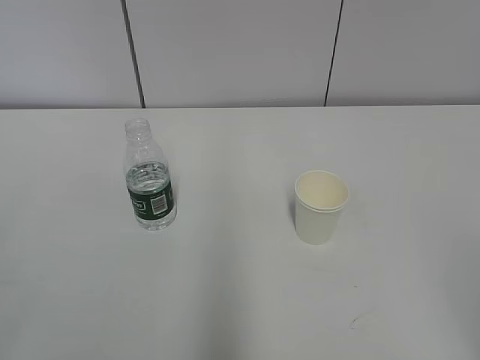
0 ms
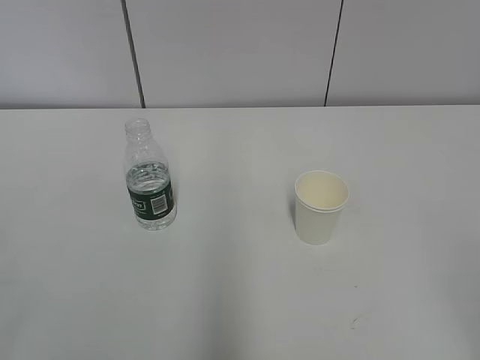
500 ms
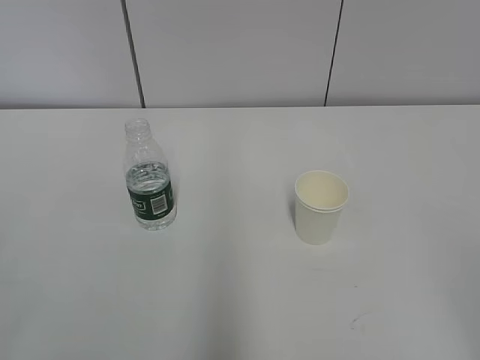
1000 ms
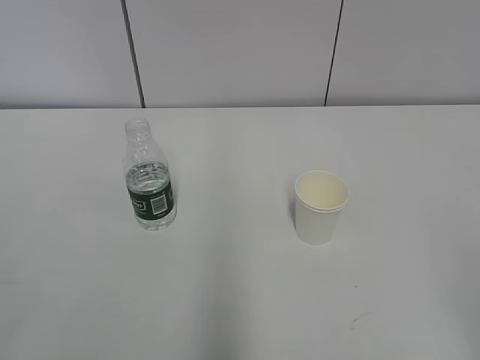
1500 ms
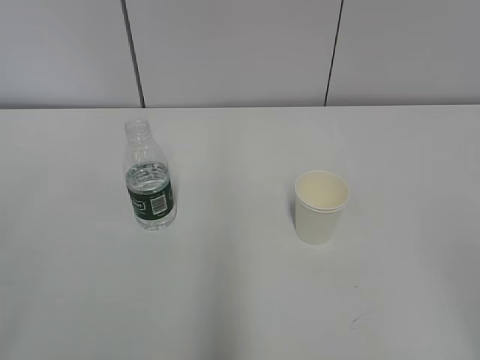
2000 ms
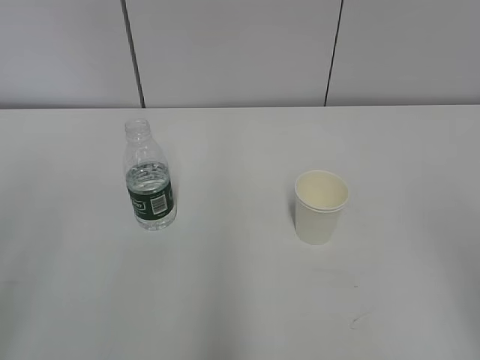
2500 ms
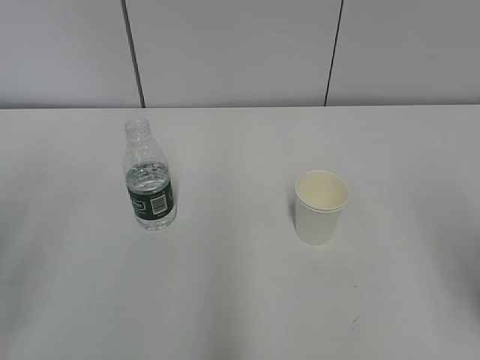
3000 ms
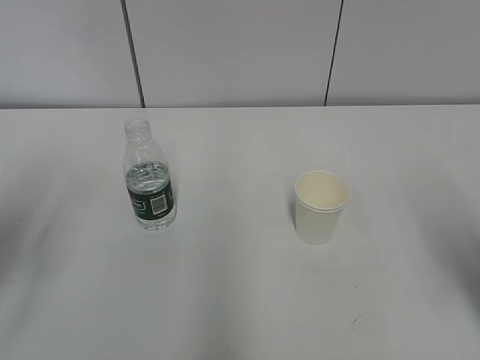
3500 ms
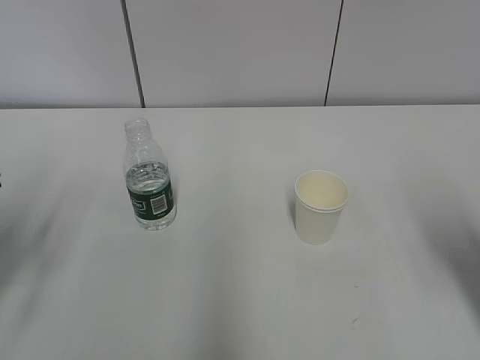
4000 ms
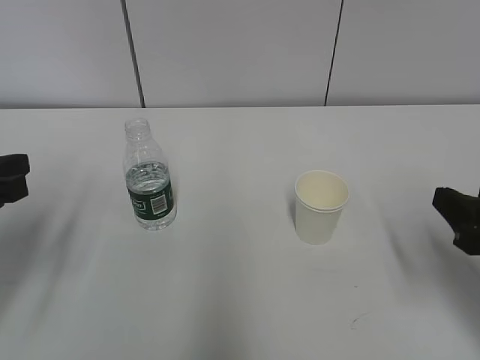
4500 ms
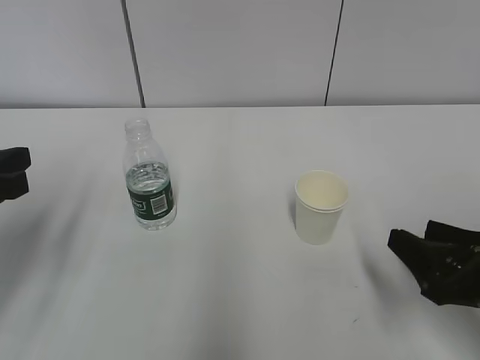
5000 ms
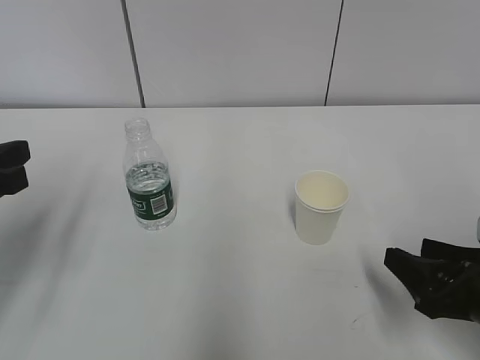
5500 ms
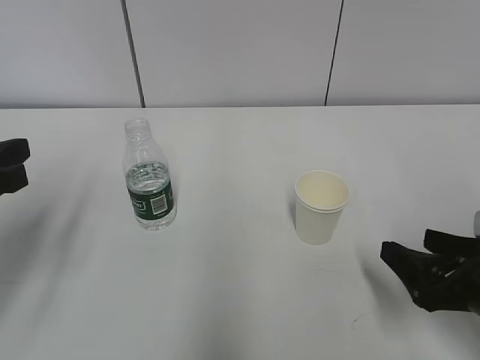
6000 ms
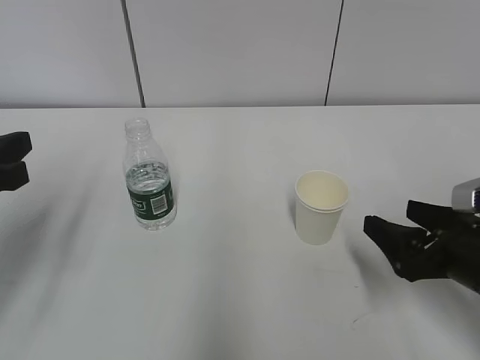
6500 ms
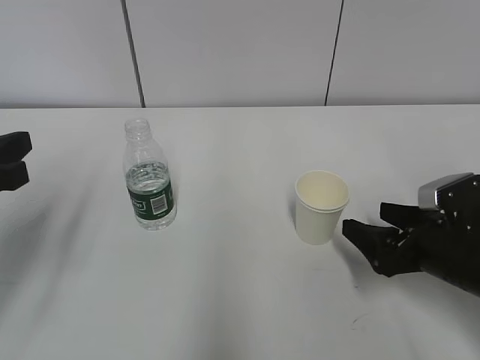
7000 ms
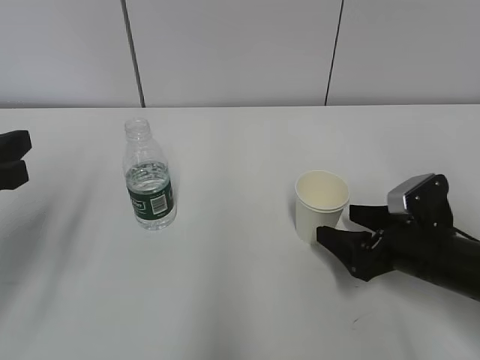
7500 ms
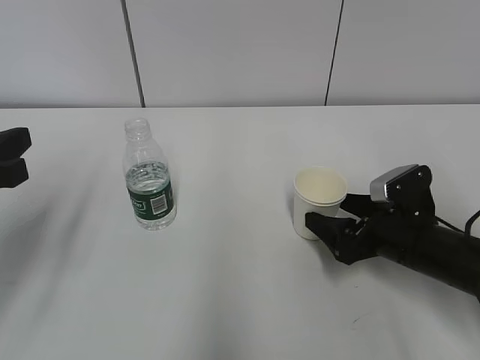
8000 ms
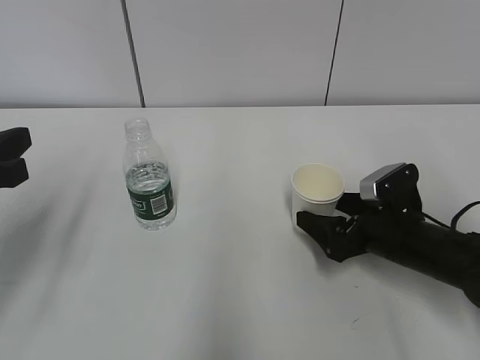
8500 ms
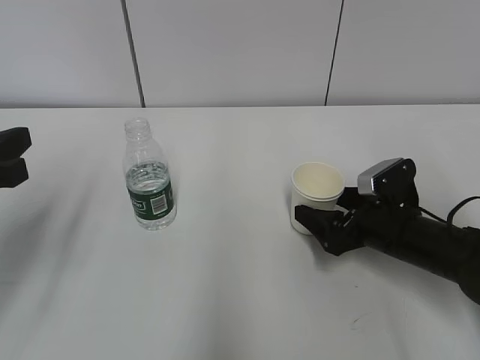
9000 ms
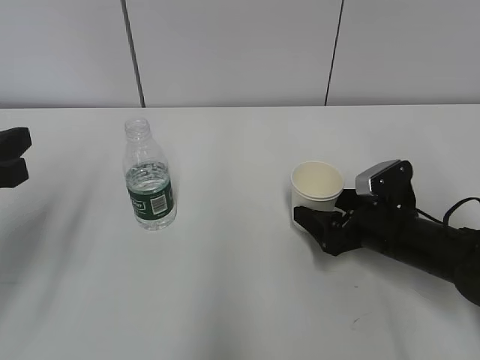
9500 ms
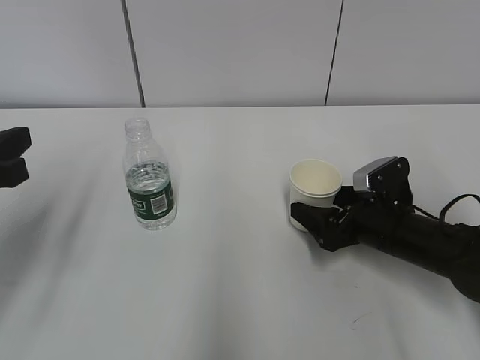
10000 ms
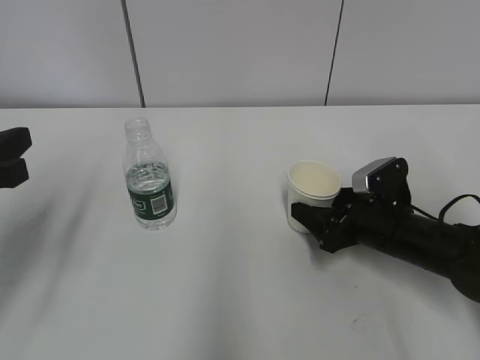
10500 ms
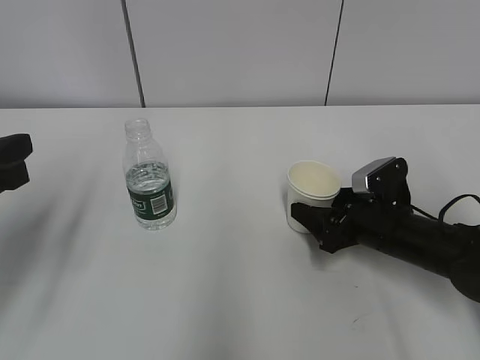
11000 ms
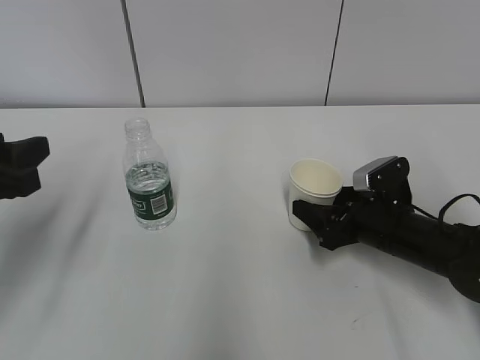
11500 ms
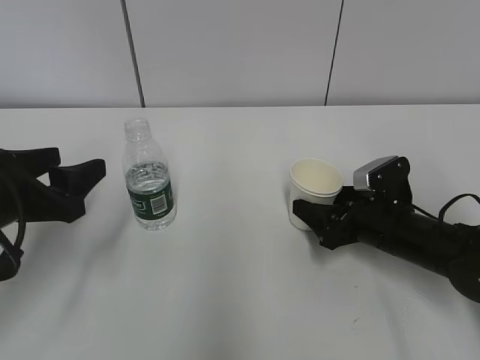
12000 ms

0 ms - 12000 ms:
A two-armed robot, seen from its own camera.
Step, 0 ms - 9000 ms: Grab the paper cup with the right hand.
2000 ms - 4000 ms: The right gripper heads forward, covering roughly 20 cm. Meanwhile the left gripper heads forward and downward, covering roughly 20 cm.
4000 ms - 6000 ms: The right gripper shifts roughly 10 cm downward, and opens its fingers.
6000 ms - 8000 ms: The right gripper moves forward, roughly 10 cm, and opens its fingers.
8000 ms - 10000 ms: There are only small adjustments of the grippers.
10000 ms - 12000 ms: The left gripper ends up some 5 cm from where it was, and opens its fingers. The right gripper closes up.

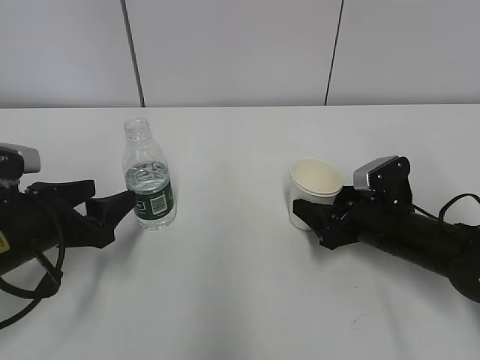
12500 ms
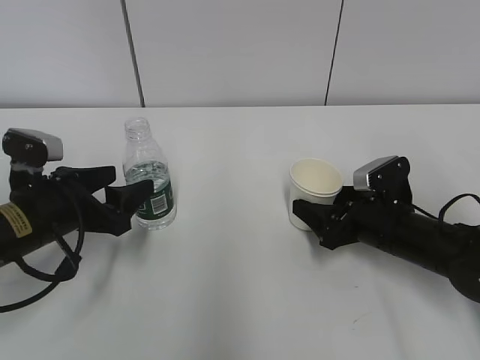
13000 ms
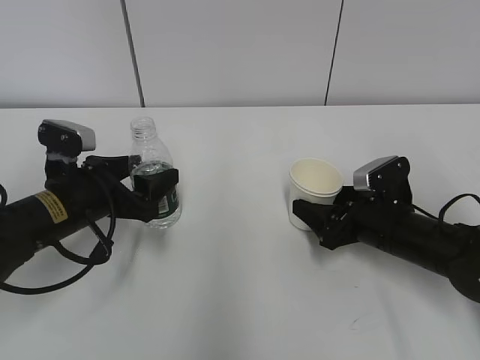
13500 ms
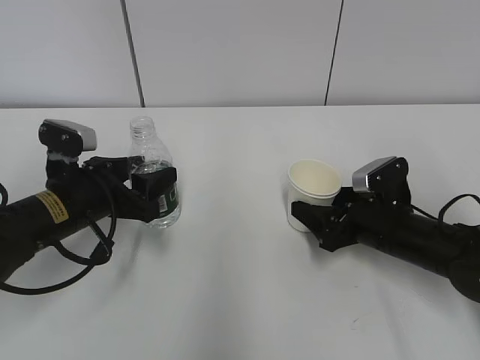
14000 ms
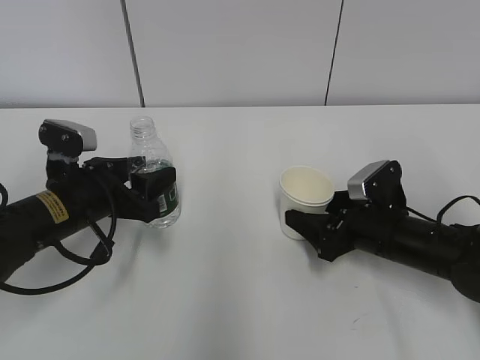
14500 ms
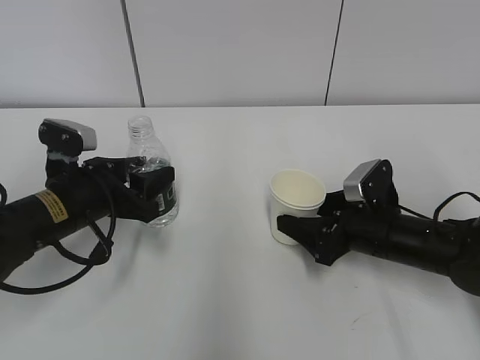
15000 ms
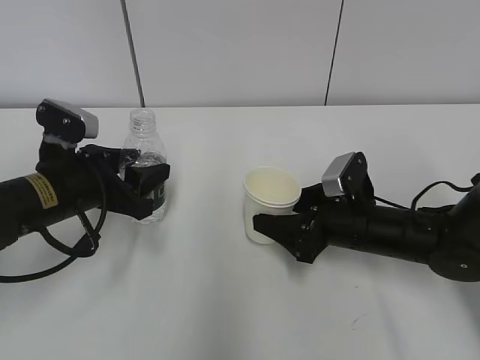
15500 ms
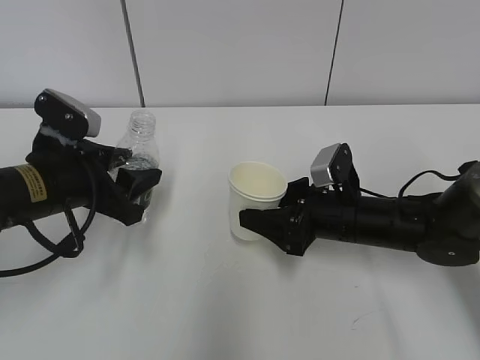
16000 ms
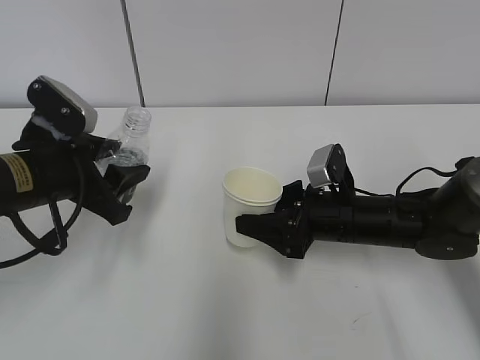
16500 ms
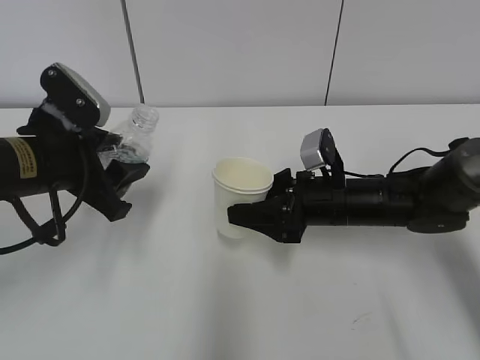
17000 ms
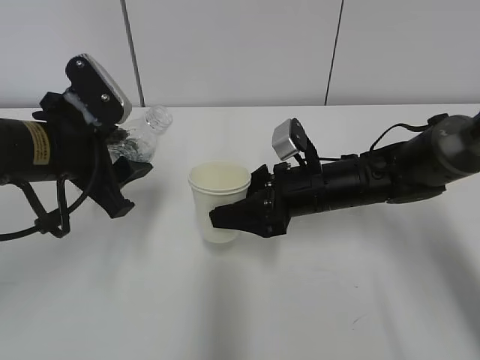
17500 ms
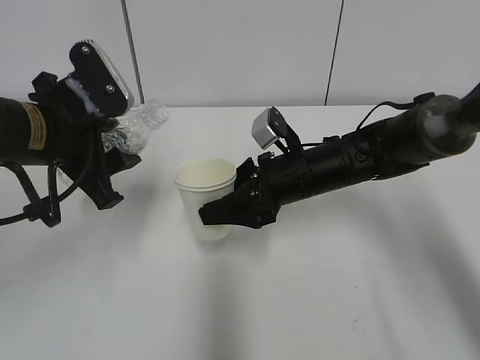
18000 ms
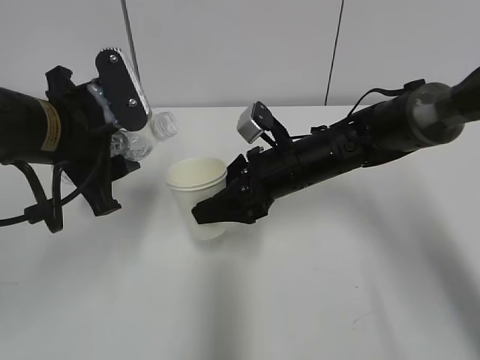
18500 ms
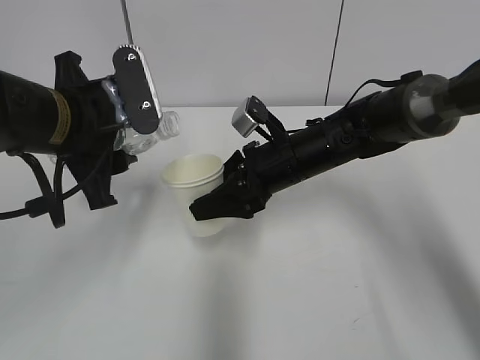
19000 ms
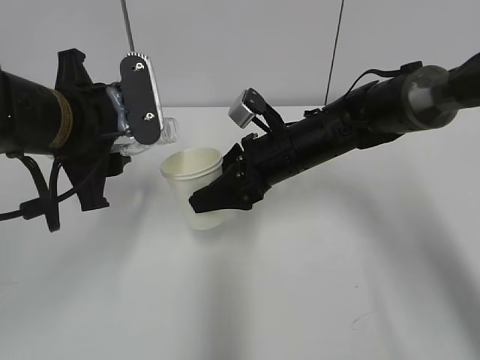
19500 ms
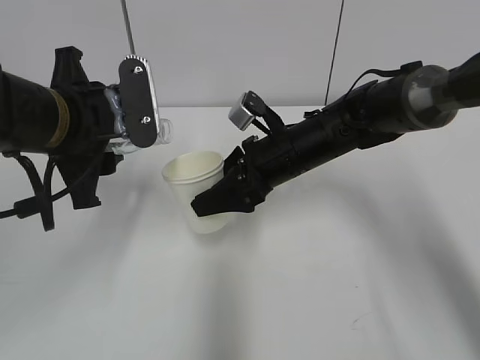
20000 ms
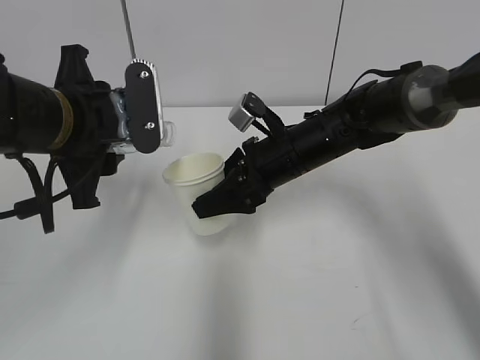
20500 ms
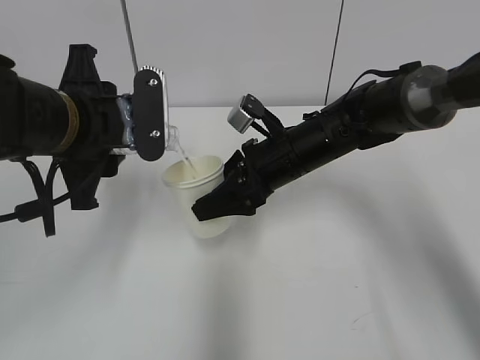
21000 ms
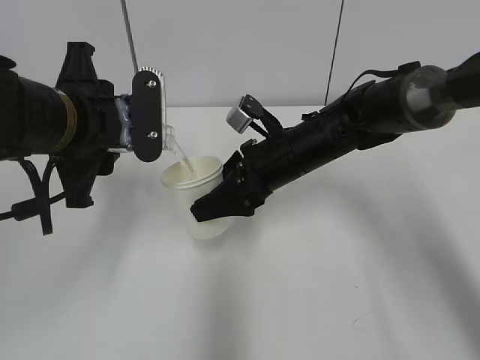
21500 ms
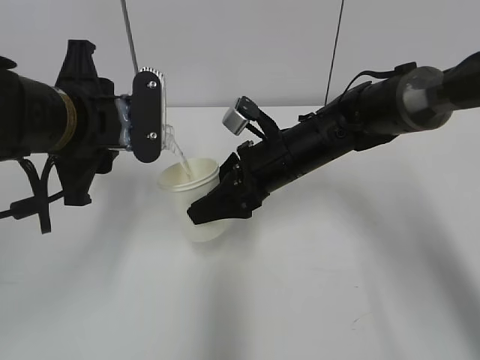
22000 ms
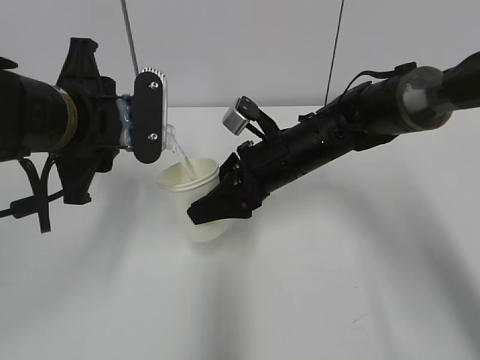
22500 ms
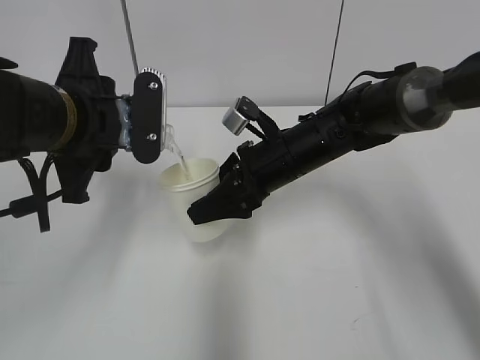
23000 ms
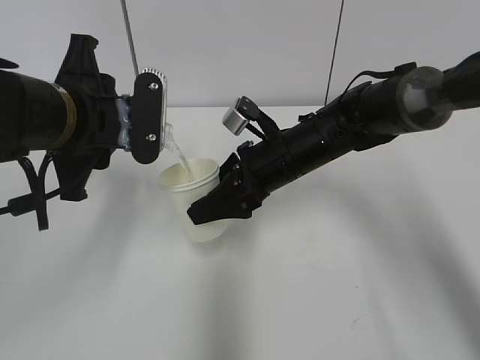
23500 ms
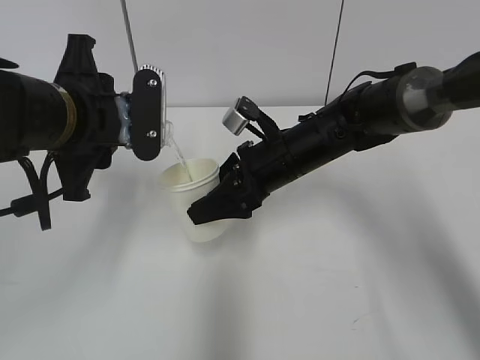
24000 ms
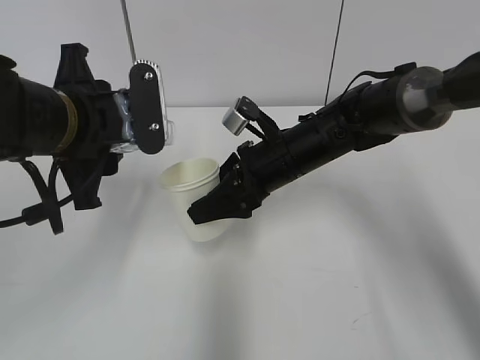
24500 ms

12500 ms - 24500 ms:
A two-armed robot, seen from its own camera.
Step, 12500 ms - 17000 ms: Lift the paper cup with the right hand.
Step, 17500 ms - 20000 ms: Fill water with the right hand.
Step, 17500 ms - 20000 ms: Pour water with the left hand.
Step, 20500 ms - 22500 ms: Collect water with the left hand.
12500 ms - 14500 ms: The left gripper travels forward by roughly 5 cm, and closes up.
14500 ms - 16500 ms: The right gripper is displaced to the left by approximately 5 cm. Meanwhile the left gripper moves upward, about 5 cm.
16500 ms - 18500 ms: The right gripper is displaced to the left and upward by approximately 10 cm, while the left gripper travels upward by about 5 cm.
20500 ms - 24500 ms: The grippers stay close to where they were, moving slightly.

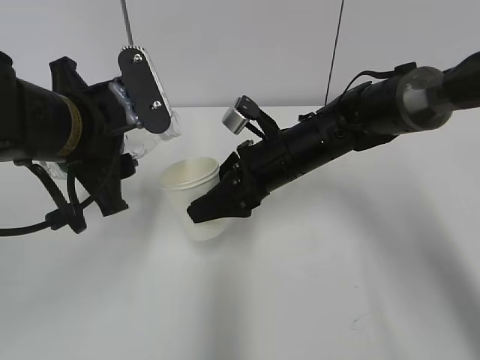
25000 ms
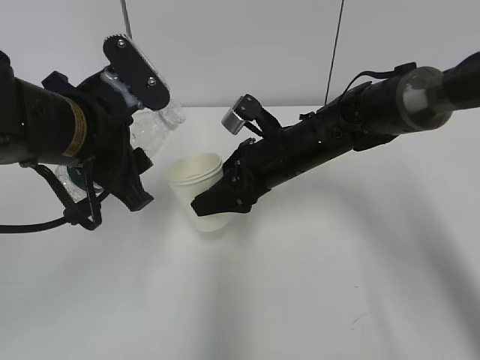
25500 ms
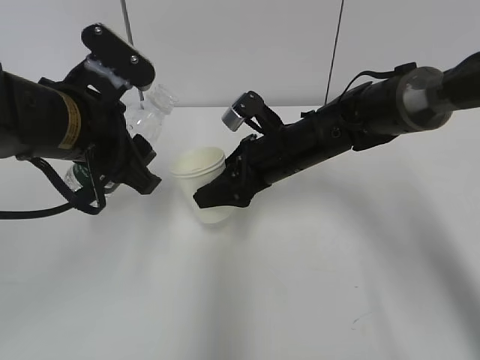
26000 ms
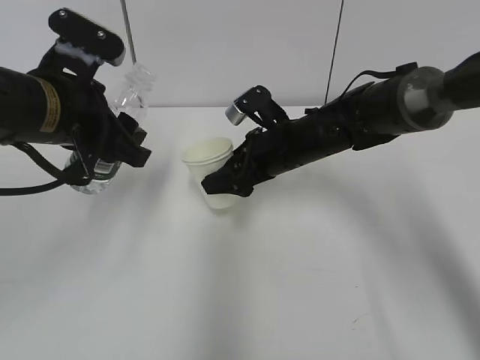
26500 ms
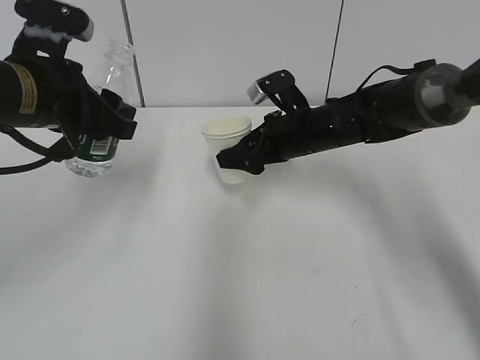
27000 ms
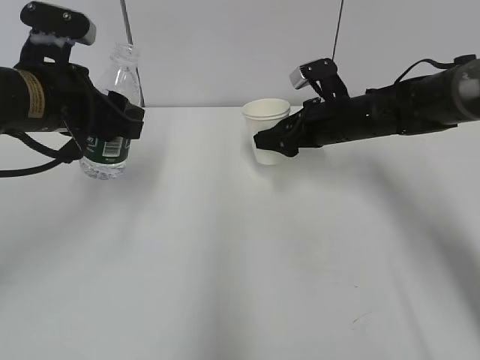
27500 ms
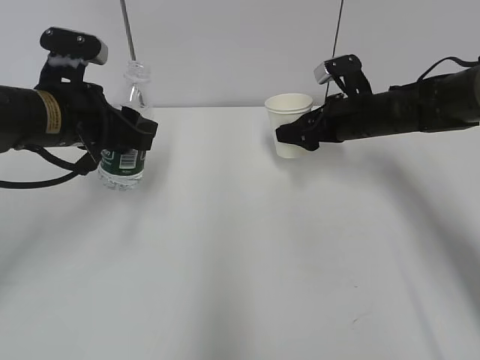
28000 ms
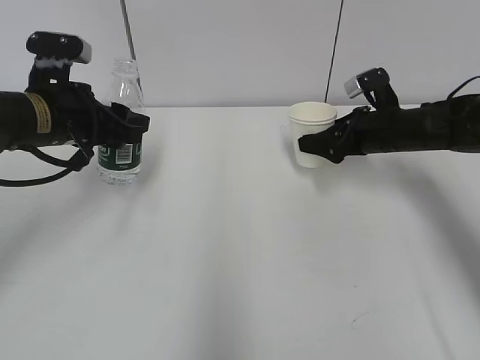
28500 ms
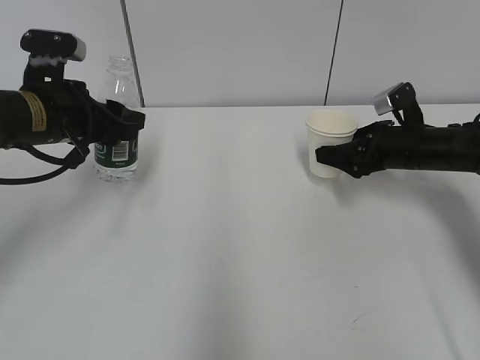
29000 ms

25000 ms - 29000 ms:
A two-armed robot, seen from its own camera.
25000 ms - 27000 ms: The left gripper ends up some 5 cm from where it was; the right gripper shifts by approximately 5 cm.
27000 ms - 29000 ms: The left gripper changes place by some 5 cm. Meanwhile the right gripper is displaced to the right by approximately 15 cm.
